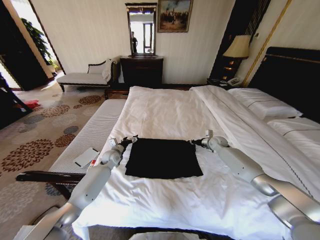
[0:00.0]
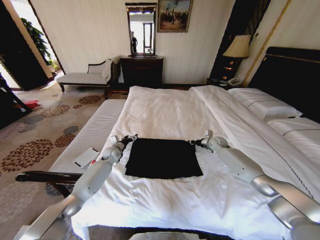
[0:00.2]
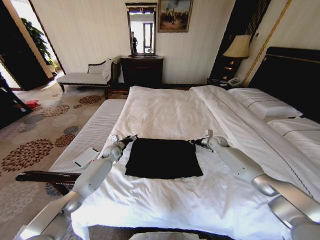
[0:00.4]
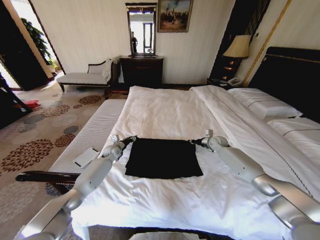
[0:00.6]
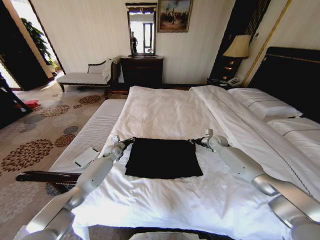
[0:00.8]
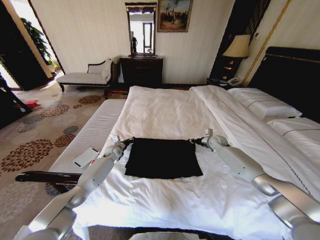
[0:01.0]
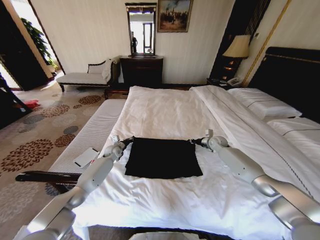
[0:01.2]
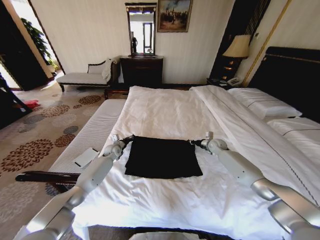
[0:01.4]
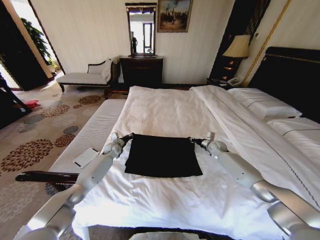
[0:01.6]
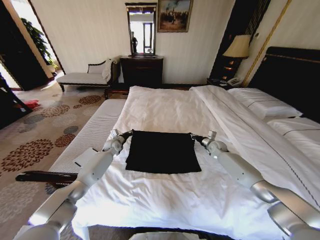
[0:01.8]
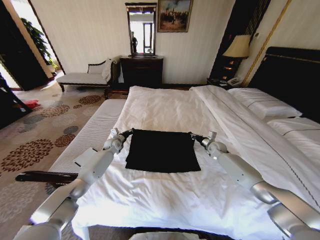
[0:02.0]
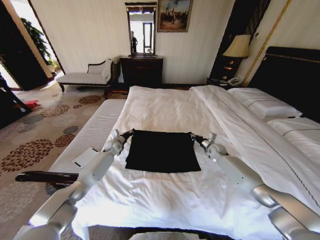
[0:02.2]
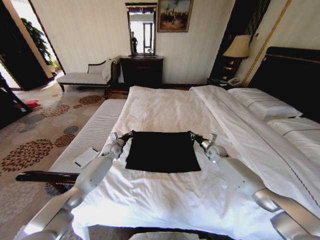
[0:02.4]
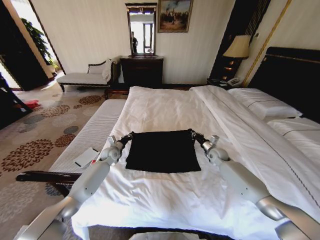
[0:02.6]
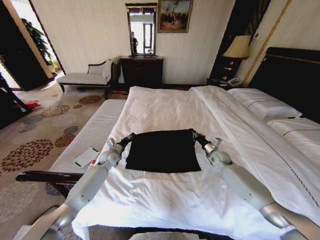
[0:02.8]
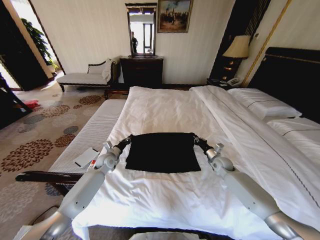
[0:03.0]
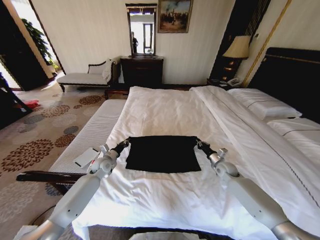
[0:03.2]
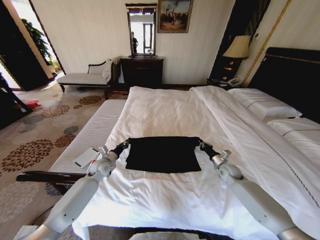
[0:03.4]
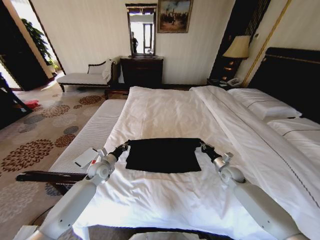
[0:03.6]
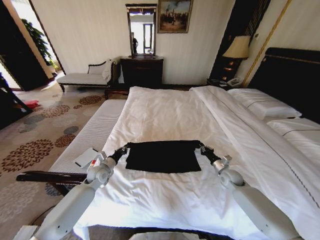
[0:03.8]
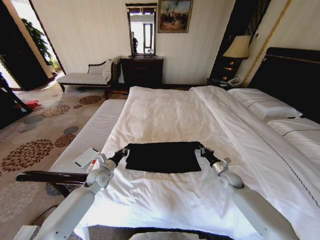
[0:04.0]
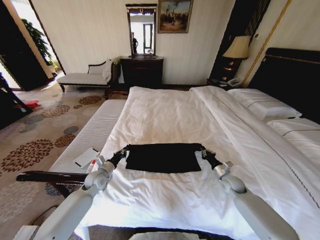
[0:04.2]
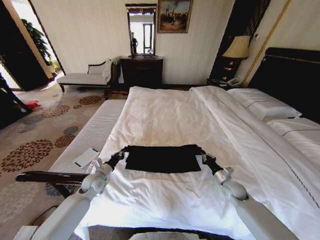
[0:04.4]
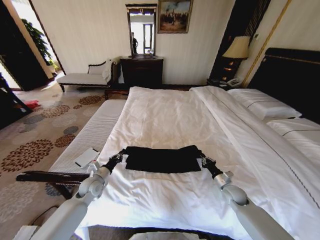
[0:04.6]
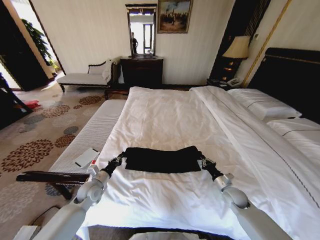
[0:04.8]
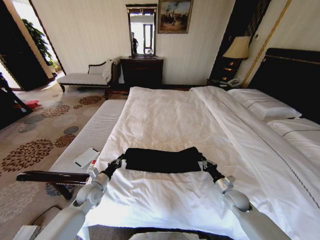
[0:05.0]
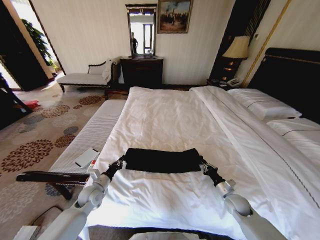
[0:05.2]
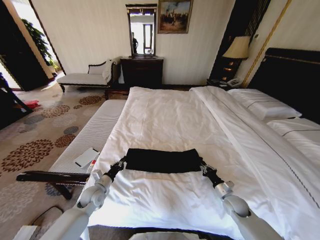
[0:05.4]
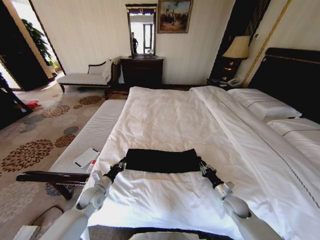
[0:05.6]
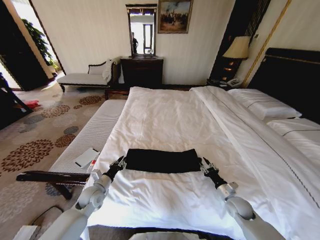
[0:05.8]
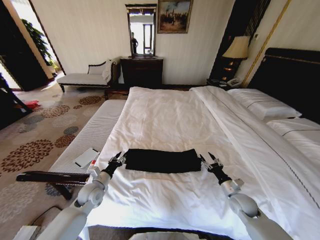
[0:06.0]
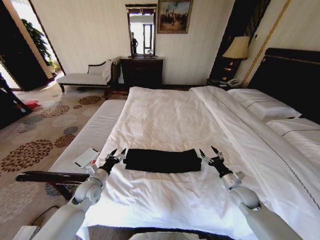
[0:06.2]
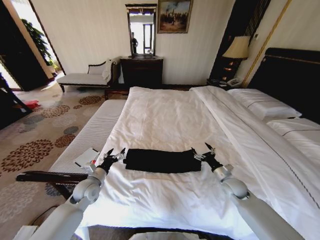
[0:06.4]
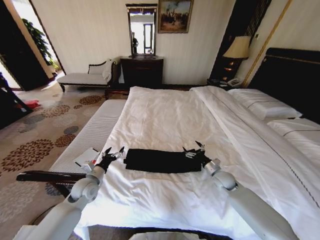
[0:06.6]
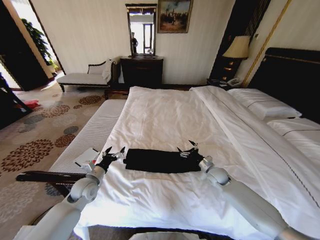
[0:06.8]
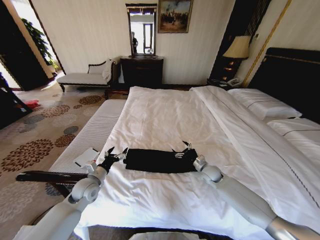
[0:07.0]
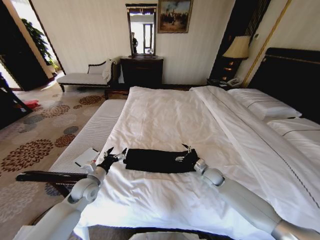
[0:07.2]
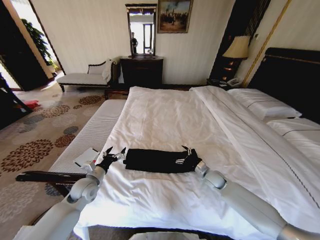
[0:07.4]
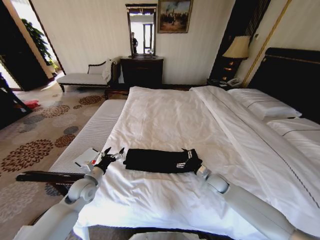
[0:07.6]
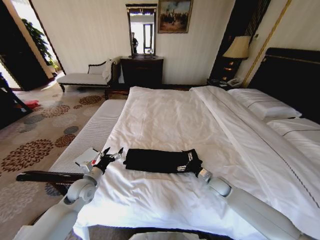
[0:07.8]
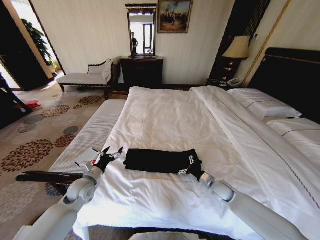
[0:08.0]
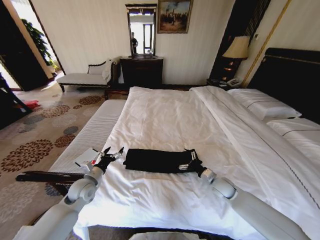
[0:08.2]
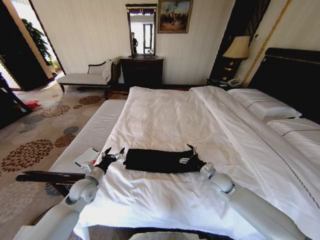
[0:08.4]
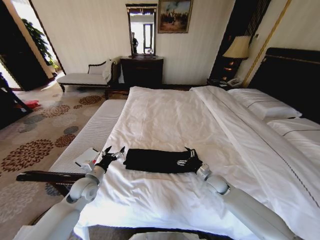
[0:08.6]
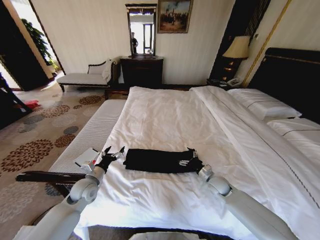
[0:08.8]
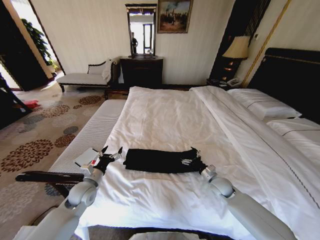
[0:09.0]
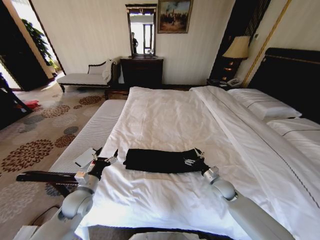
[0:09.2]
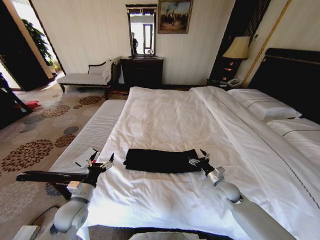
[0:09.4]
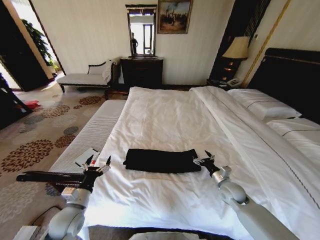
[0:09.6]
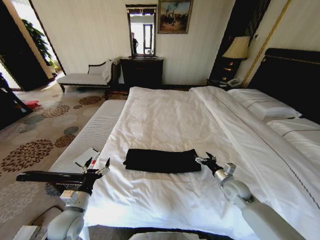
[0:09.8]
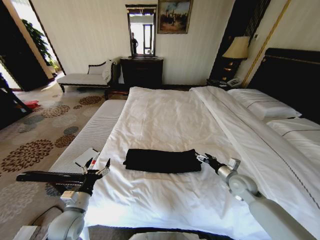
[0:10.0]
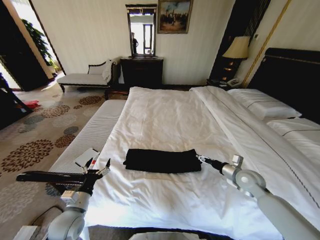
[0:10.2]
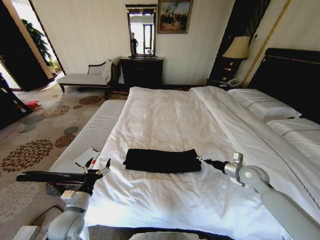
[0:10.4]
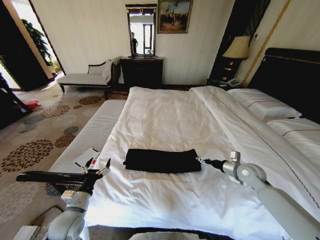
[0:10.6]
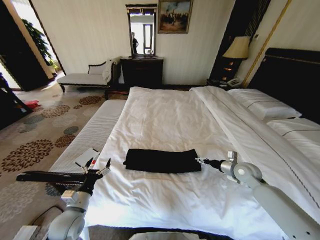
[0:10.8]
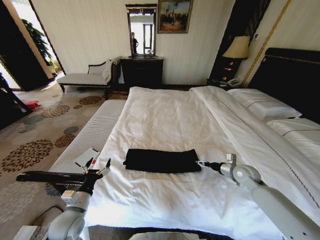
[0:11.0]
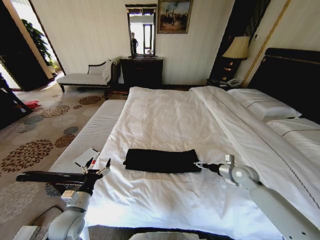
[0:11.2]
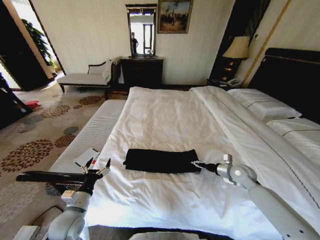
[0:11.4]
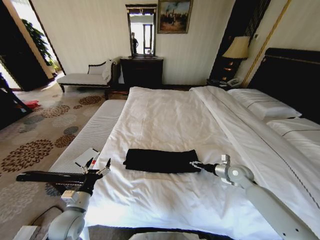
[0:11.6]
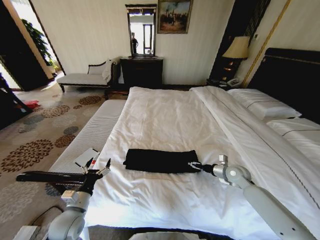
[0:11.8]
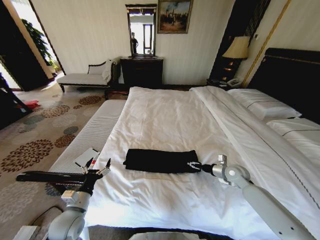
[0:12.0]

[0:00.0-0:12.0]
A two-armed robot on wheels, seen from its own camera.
Task of the whole recording: Fold the clothes on the bed.
0:00.0 to 0:01.6: The left gripper travels forward by roughly 5 cm, and closes up.
0:01.6 to 0:03.0: Both grippers travel together backward, some 10 cm.
0:03.0 to 0:04.4: The grippers both shift backward by some 10 cm.
0:04.4 to 0:06.0: The left gripper opens. Meanwhile the right gripper is displaced backward by about 5 cm, and opens.
0:06.0 to 0:07.6: The left gripper opens its fingers; the right gripper shifts roughly 10 cm forward and to the left, and opens up.
0:07.6 to 0:09.0: The grippers stay close to where they were, moving slightly.
0:09.0 to 0:10.4: The left gripper is displaced backward by about 10 cm. The right gripper shifts approximately 15 cm upward and to the right.
0:10.4 to 0:12.0: The right gripper ends up roughly 5 cm from where it was.

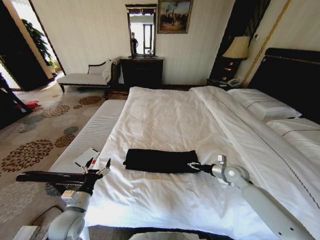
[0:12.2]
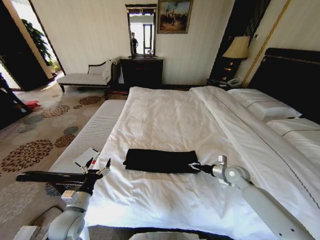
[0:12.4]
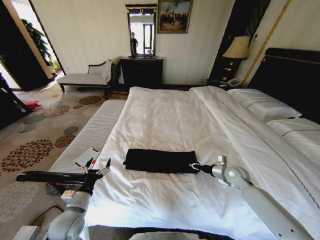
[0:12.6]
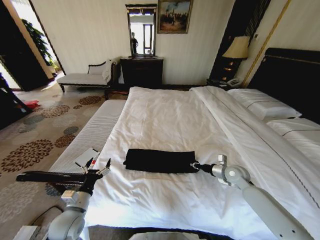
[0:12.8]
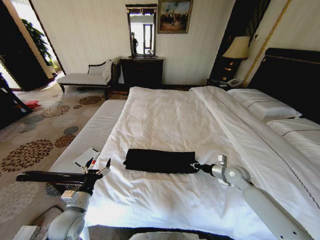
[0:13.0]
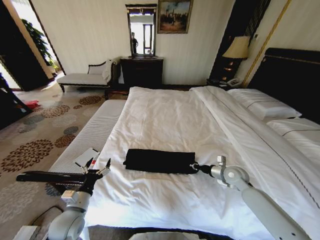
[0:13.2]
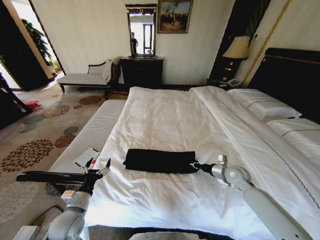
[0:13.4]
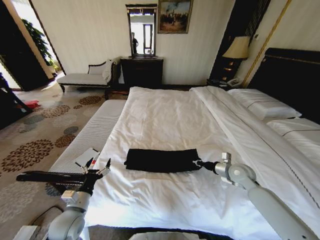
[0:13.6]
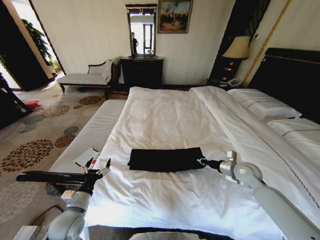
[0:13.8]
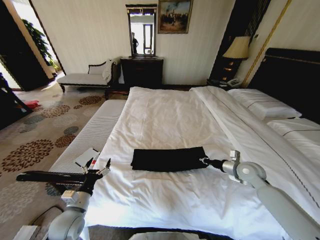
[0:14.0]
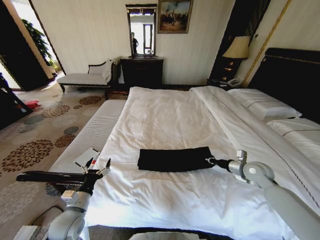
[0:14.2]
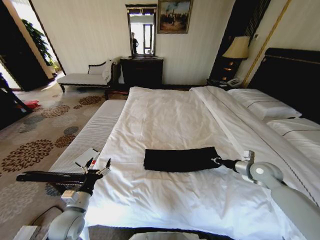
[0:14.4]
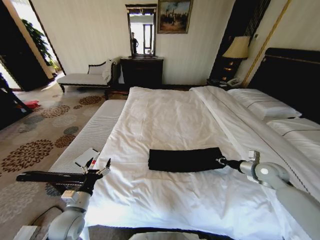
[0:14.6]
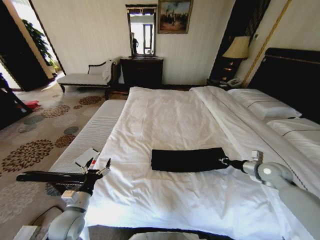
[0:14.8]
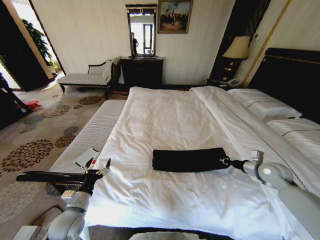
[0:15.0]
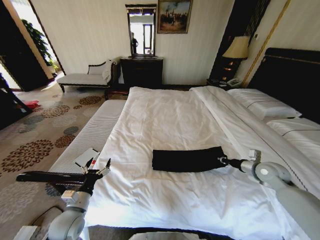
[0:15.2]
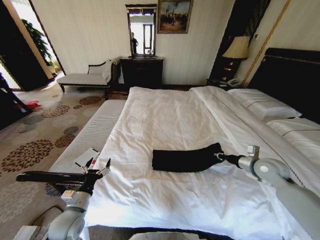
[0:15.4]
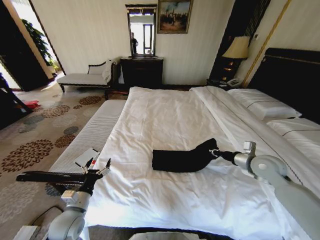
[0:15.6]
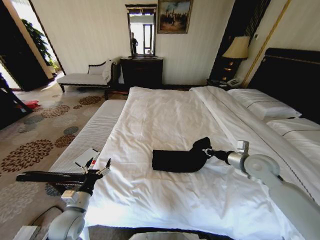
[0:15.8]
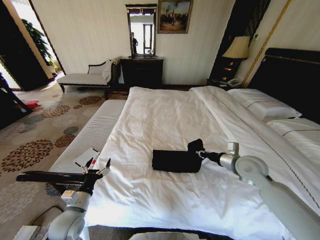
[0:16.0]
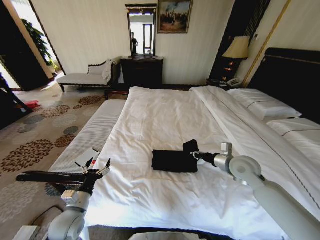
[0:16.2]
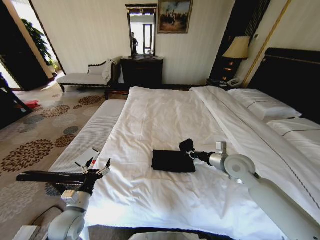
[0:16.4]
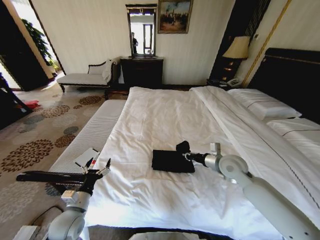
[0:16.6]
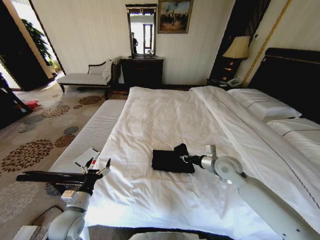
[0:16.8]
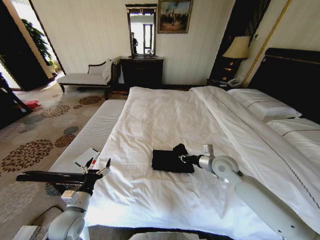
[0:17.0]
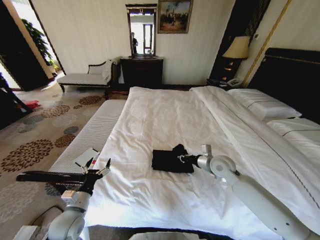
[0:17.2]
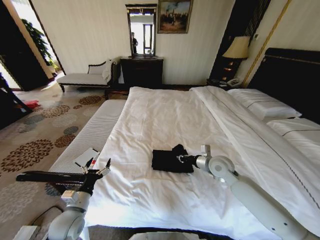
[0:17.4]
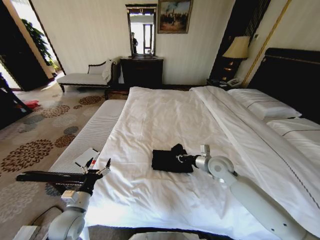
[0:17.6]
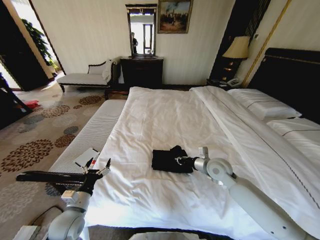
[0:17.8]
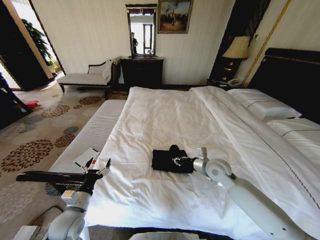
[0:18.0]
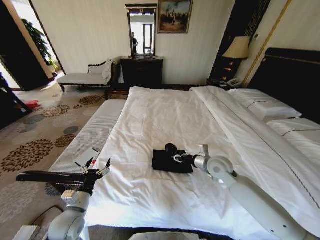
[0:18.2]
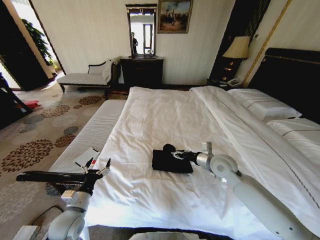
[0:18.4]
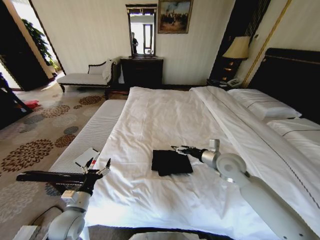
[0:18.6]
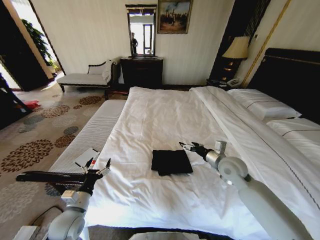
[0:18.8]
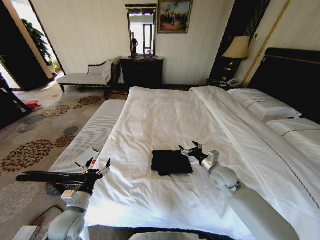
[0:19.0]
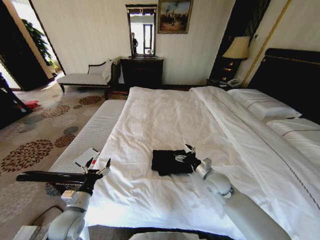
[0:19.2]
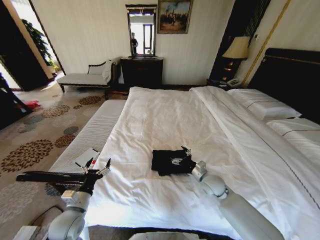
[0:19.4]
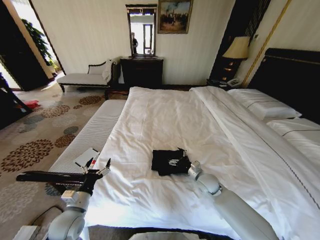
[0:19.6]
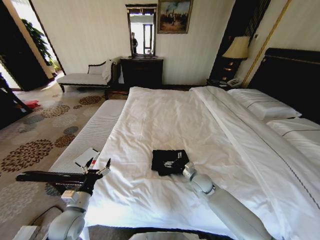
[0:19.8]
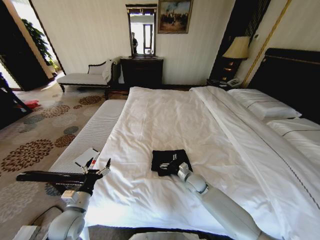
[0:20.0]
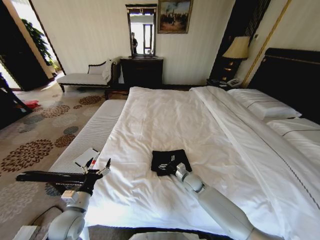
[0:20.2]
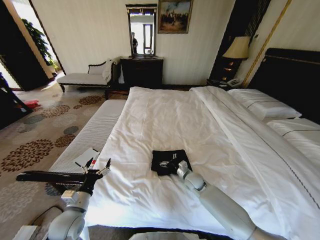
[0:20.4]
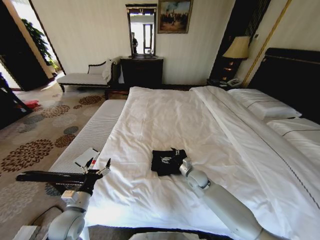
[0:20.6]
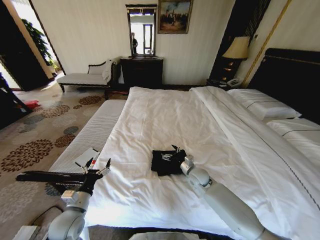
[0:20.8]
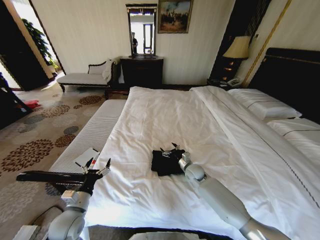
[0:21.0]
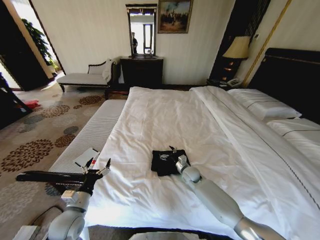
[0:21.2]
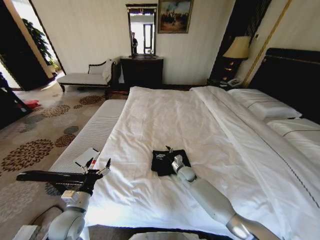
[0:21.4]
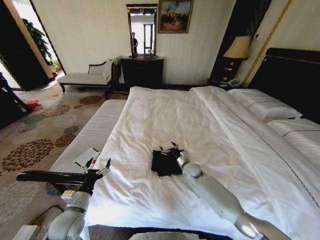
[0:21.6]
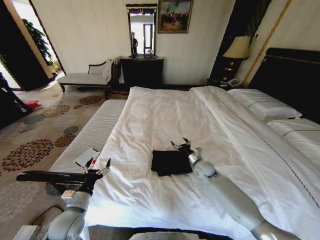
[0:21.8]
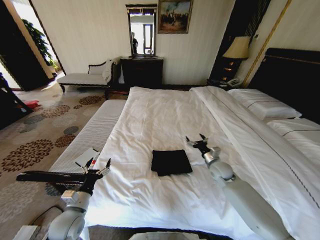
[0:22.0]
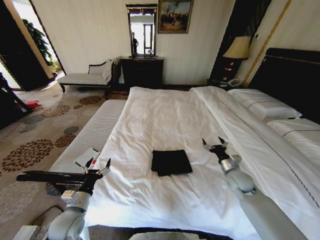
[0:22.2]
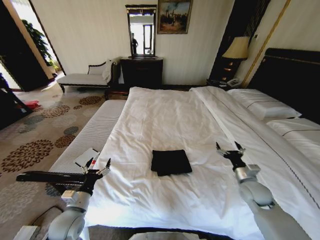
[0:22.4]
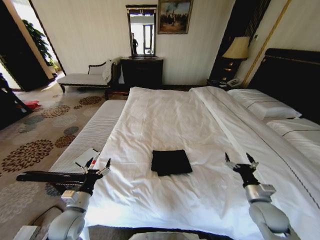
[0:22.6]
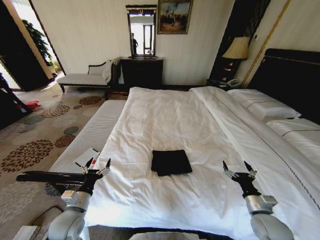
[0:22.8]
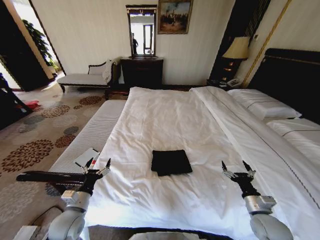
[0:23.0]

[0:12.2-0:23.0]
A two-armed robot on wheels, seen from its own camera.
Task of the whole recording: Fold the clothes on the bed.
0:12.2 to 0:13.8: The right gripper closes up.
0:13.8 to 0:15.2: The right gripper goes some 10 cm to the right.
0:15.2 to 0:16.8: The right gripper heads to the left, covering approximately 20 cm.
0:16.8 to 0:18.4: The right gripper opens its fingers.
0:18.4 to 0:20.0: The right gripper goes about 20 cm downward, and opens up.
0:20.0 to 0:21.4: The right gripper shifts roughly 5 cm forward.
0:21.4 to 0:23.0: The right gripper is displaced backward and to the right by some 35 cm.
